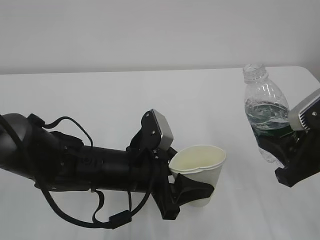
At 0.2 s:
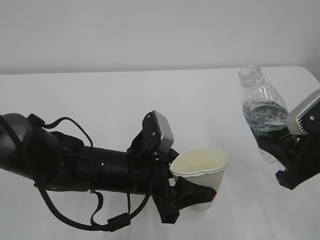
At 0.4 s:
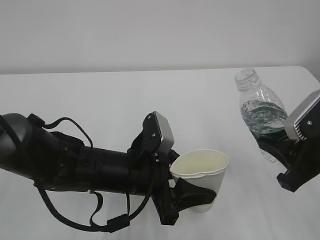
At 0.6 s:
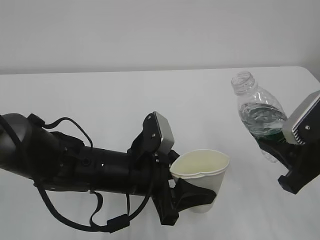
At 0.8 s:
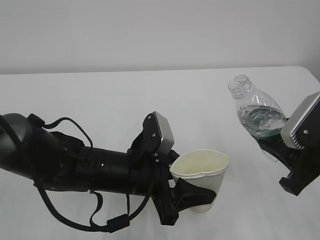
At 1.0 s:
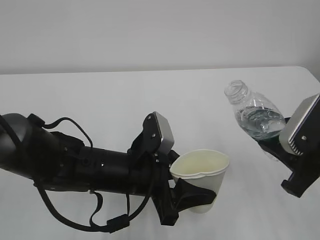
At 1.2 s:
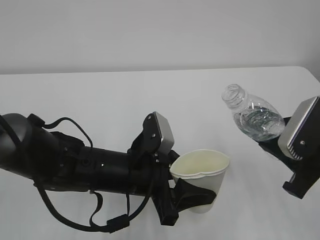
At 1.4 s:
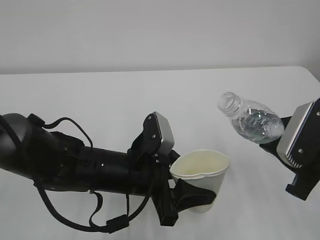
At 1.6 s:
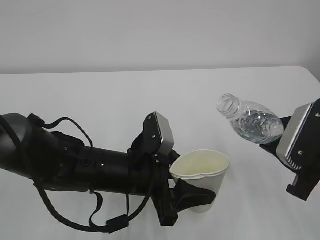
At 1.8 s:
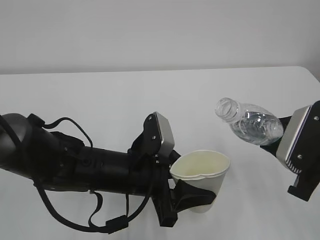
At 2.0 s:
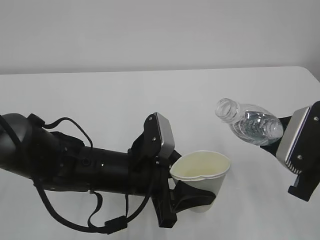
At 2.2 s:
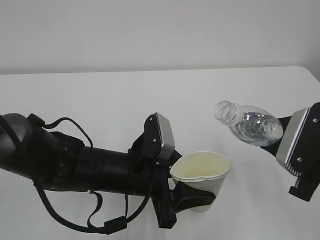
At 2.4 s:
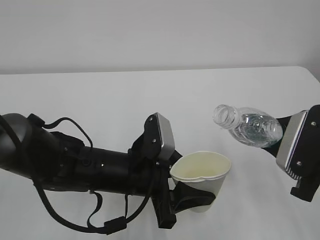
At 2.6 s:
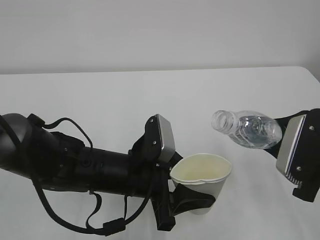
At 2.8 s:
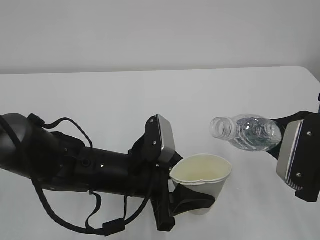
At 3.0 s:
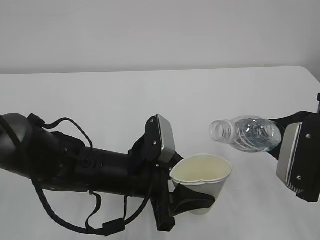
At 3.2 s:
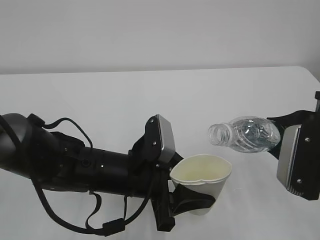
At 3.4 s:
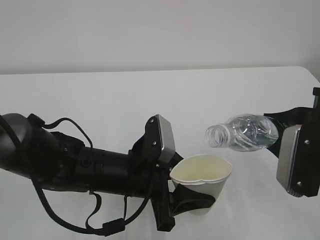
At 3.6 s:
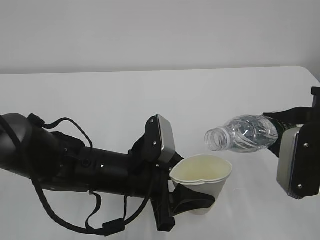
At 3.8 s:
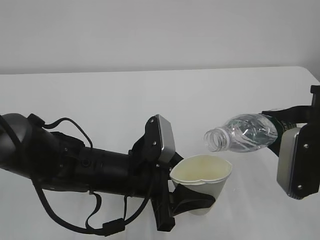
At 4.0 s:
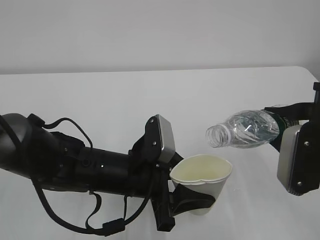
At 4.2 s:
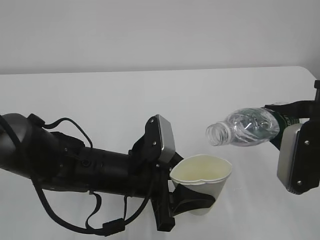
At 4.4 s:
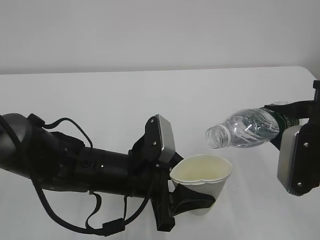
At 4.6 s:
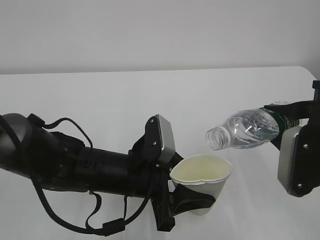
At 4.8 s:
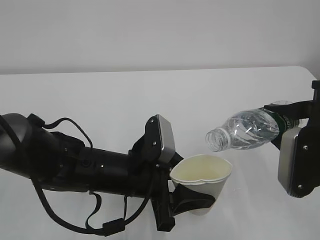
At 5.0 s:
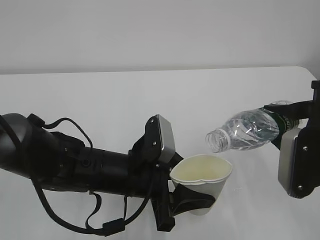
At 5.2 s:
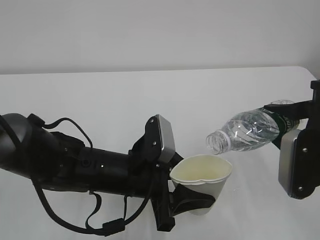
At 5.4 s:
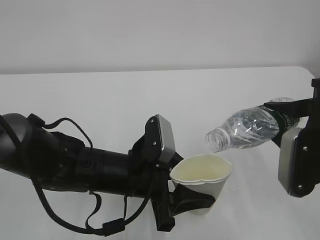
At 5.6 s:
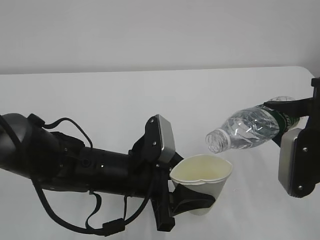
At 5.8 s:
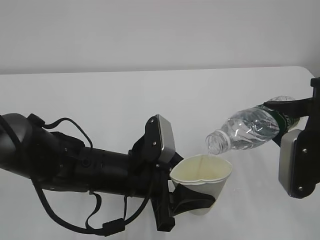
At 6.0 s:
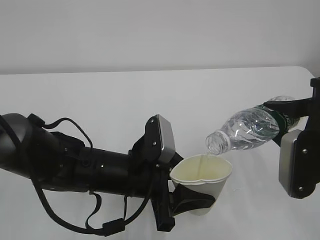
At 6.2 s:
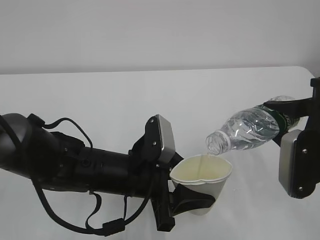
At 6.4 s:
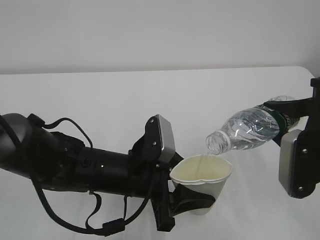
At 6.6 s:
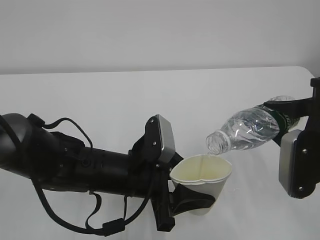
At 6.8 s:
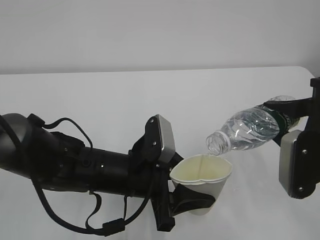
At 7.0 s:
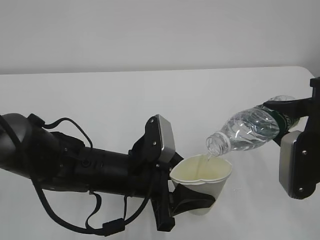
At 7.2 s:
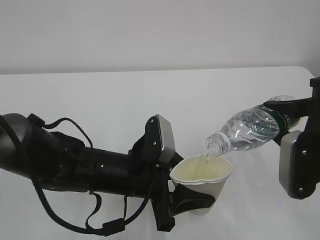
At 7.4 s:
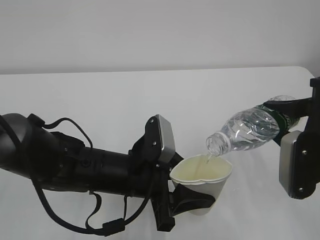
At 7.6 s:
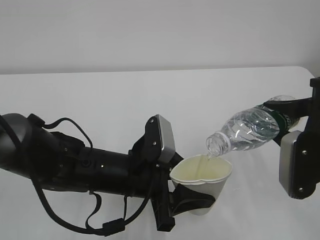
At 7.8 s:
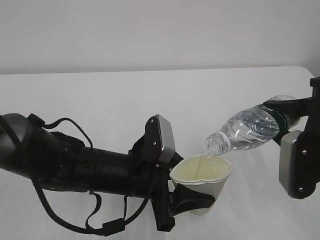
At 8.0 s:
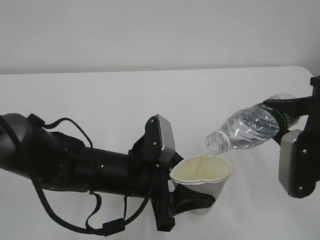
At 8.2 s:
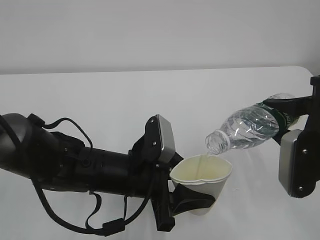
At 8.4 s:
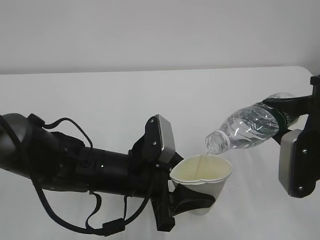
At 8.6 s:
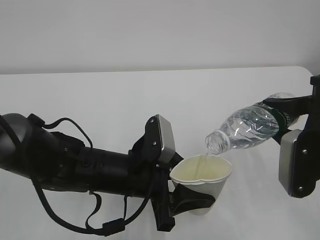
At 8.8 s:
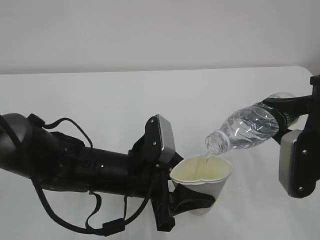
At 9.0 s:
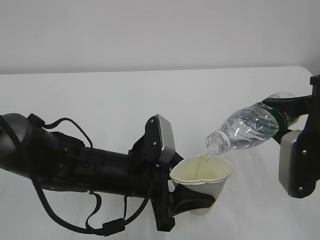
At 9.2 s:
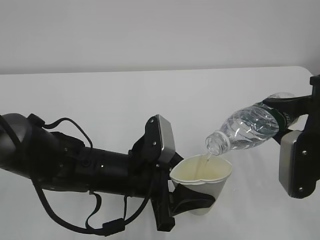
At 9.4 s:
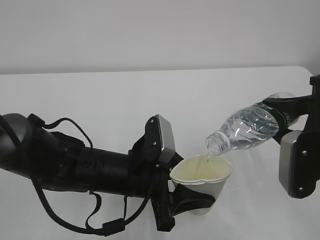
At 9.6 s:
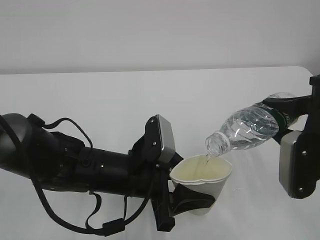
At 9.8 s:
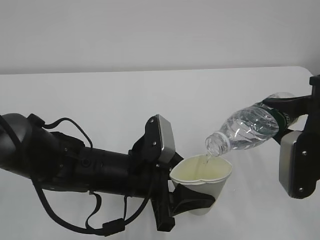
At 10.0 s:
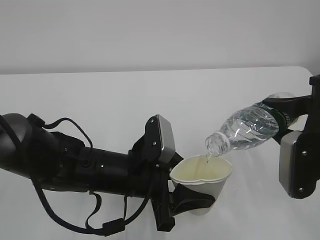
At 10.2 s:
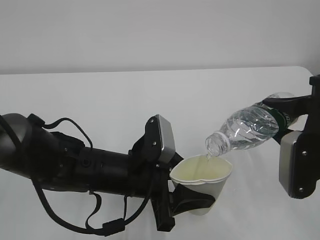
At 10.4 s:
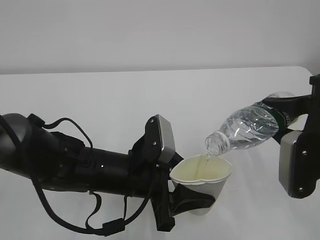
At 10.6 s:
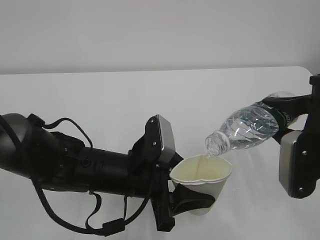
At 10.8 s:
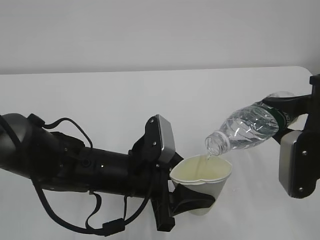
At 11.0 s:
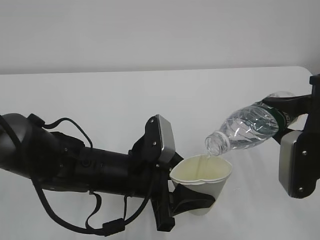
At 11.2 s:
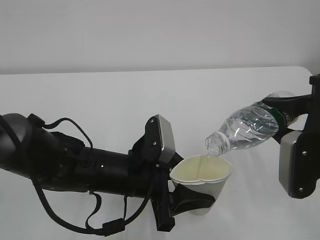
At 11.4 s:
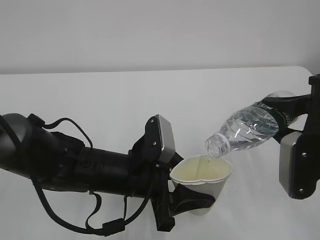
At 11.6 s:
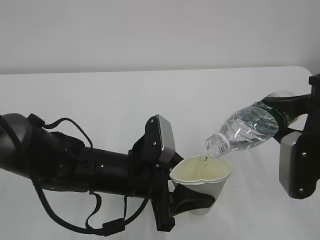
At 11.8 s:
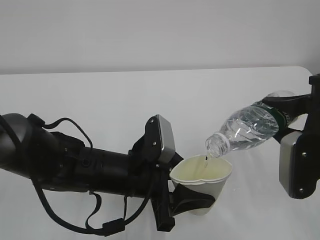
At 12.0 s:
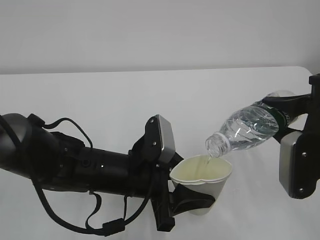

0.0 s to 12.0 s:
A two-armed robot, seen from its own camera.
1.6 to 3.0 s: The grippers stay close to where they were, moving slightly.
3.0 to 4.4 s: There are only small adjustments of the grippers.
4.4 to 6.0 s: There are only small adjustments of the grippers.
6.0 to 12.0 s: The two grippers keep their place.

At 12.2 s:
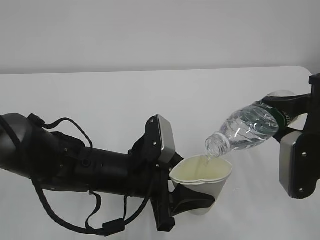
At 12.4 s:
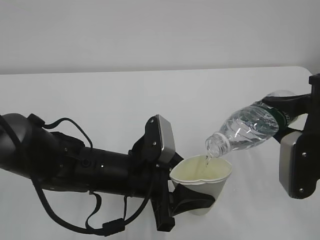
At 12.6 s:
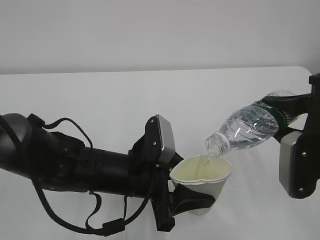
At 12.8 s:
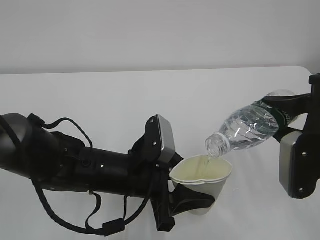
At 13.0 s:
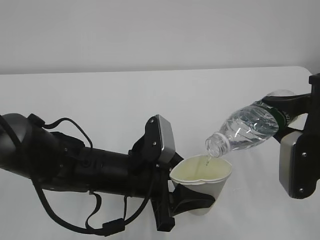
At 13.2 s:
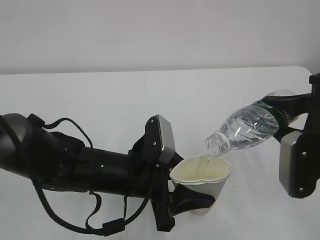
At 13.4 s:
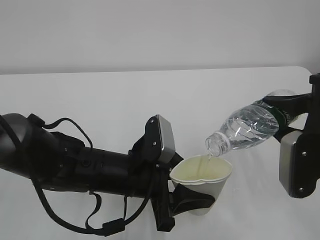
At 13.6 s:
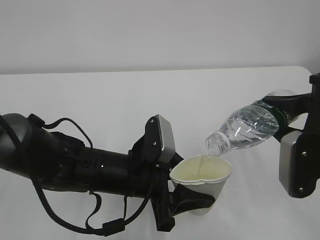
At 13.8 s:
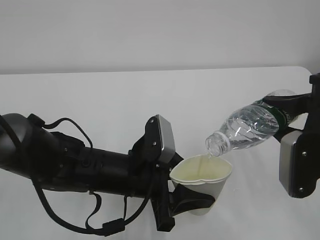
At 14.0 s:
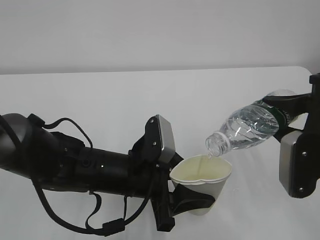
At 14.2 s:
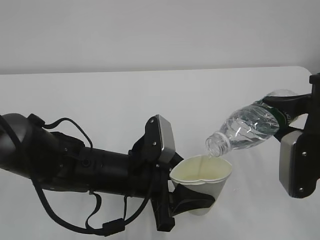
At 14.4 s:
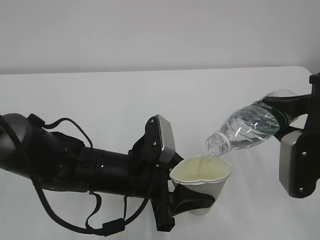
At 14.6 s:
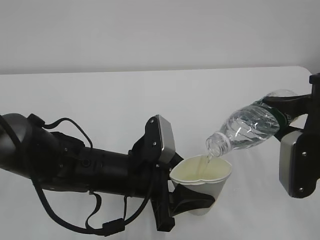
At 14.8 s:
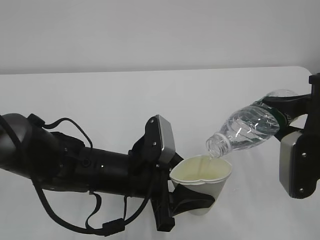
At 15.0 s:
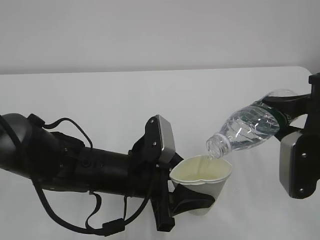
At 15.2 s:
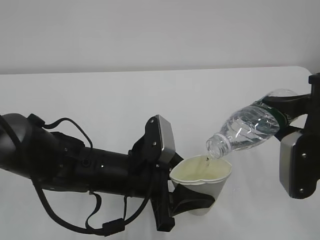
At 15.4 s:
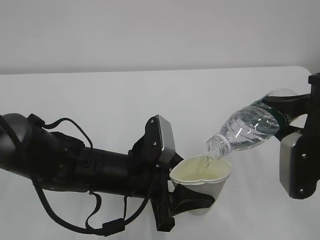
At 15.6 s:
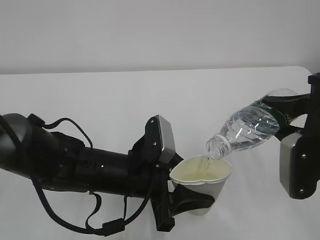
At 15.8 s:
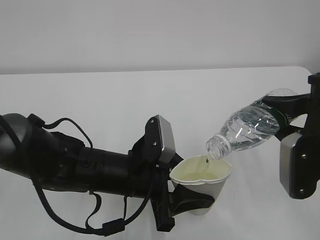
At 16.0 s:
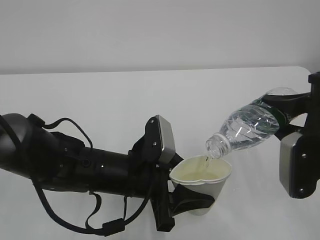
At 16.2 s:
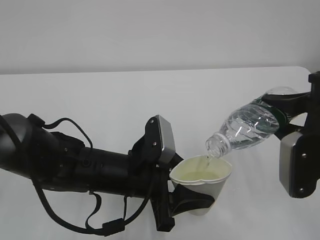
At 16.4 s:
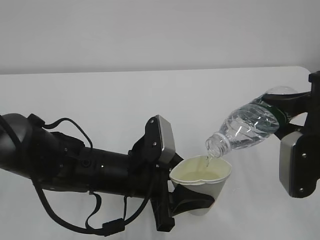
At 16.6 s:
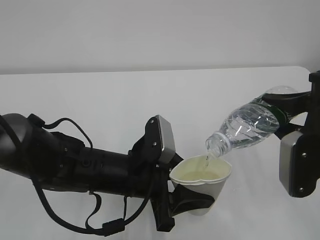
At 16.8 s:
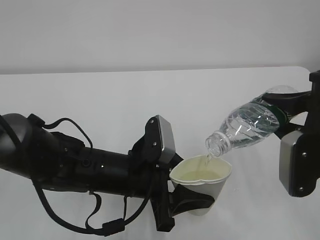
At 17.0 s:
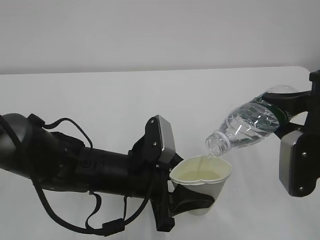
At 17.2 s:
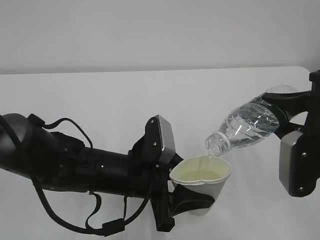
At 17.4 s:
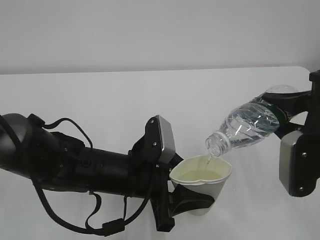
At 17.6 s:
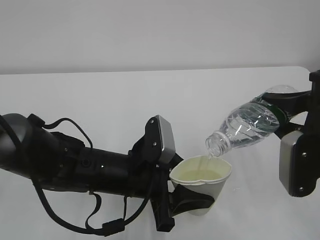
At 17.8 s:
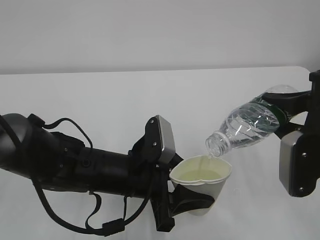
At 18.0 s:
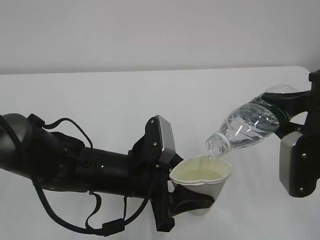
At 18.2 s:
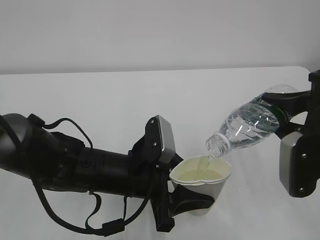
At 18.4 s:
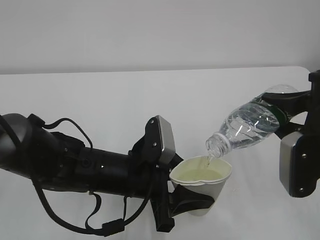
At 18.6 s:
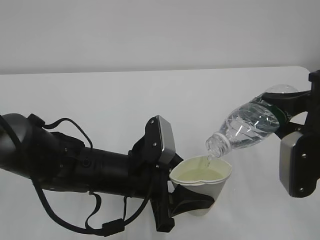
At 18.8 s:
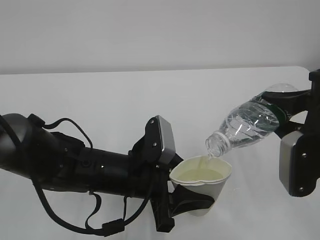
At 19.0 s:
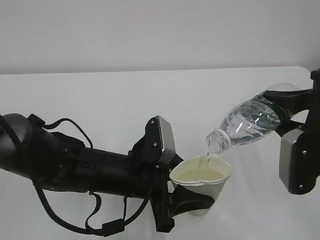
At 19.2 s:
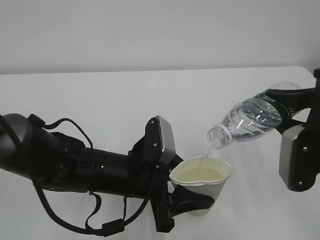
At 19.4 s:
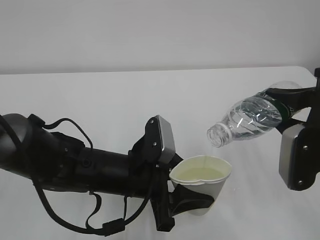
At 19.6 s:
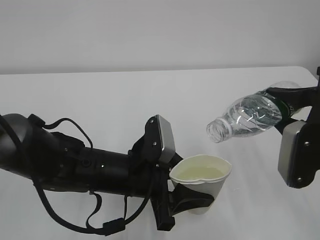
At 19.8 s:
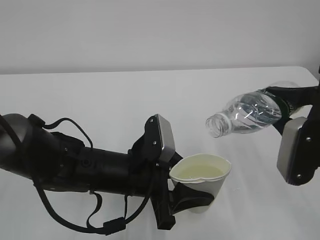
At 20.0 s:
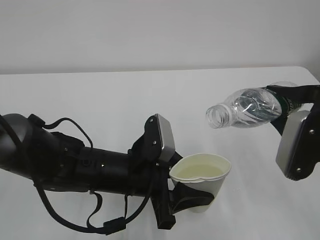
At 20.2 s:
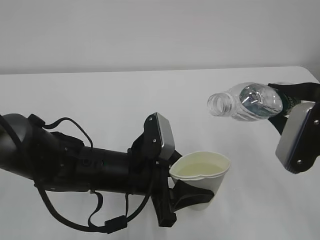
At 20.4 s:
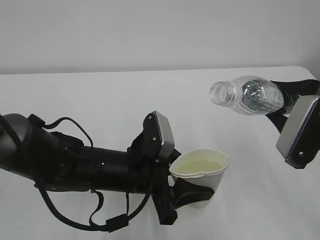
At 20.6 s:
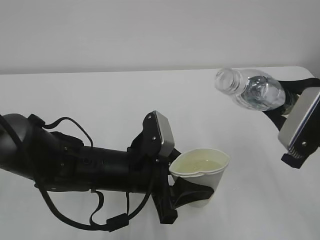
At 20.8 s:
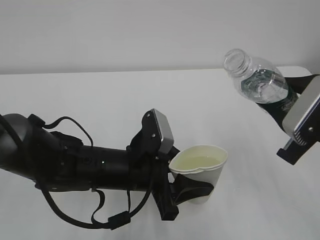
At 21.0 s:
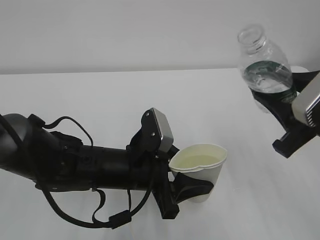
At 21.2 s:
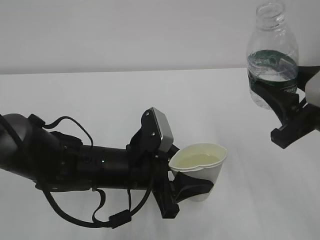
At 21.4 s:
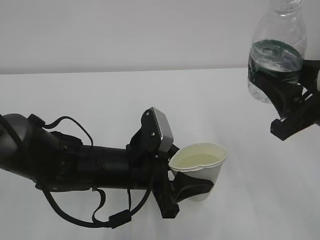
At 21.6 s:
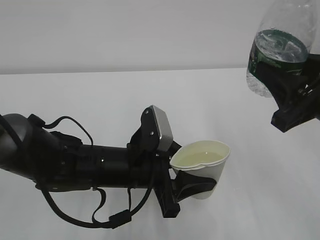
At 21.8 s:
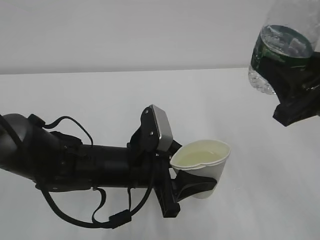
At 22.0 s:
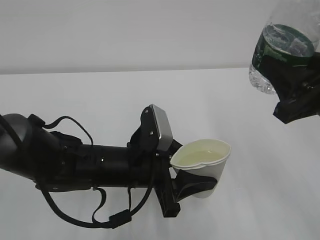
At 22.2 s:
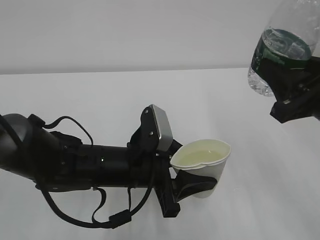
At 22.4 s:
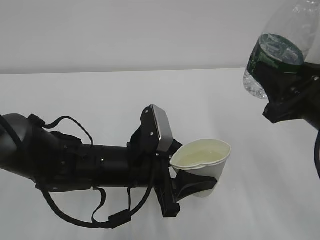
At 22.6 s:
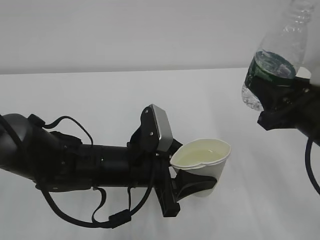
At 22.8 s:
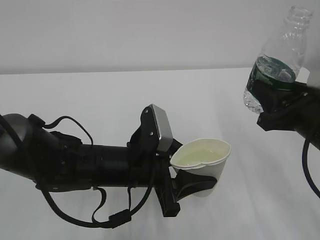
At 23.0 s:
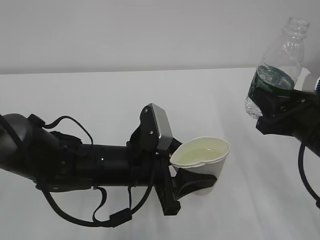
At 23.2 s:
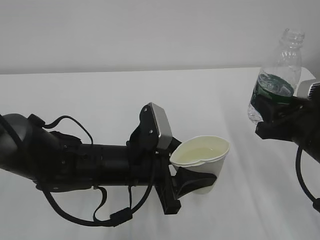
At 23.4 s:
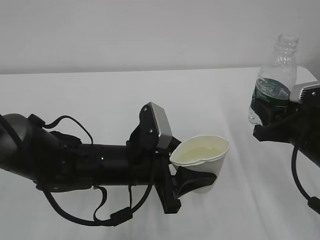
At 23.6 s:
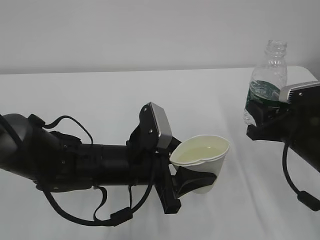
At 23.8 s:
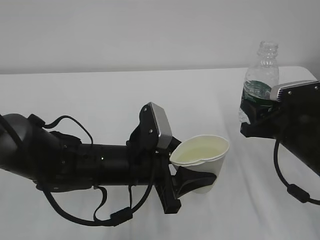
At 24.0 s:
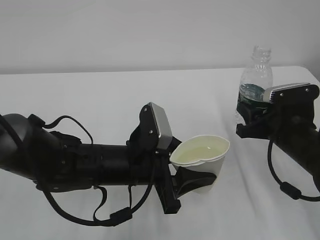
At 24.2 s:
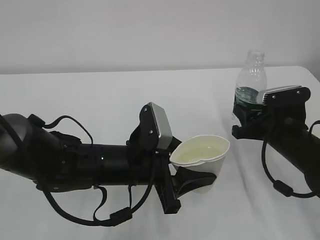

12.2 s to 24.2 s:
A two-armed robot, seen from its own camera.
12.2 to 18.2 s: Neither gripper changes place.
18.2 to 19.8 s: The grippers move only a little.
22.6 to 24.2 s: The right gripper moves downward and forward, roughly 10 cm.
